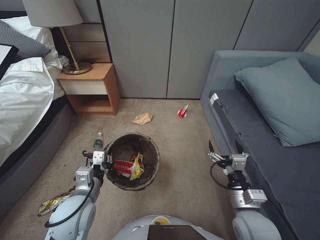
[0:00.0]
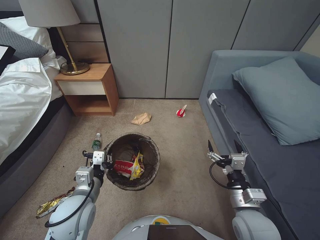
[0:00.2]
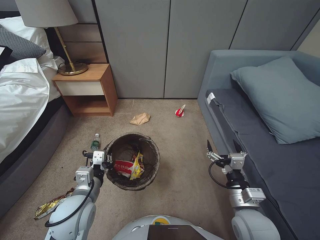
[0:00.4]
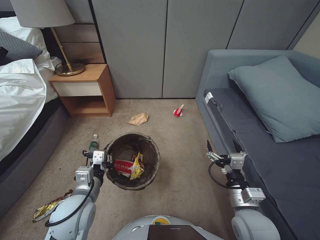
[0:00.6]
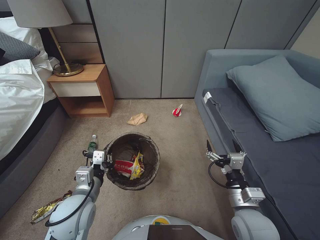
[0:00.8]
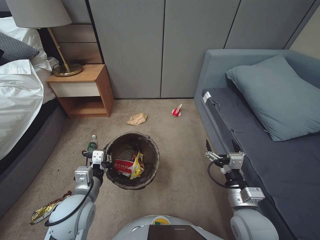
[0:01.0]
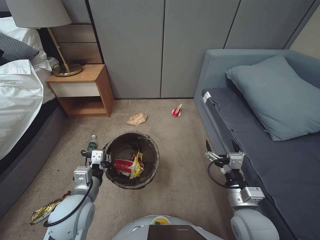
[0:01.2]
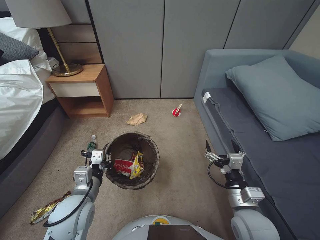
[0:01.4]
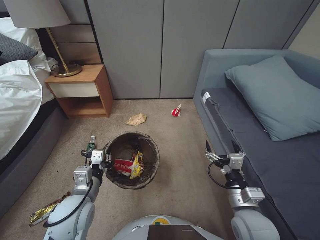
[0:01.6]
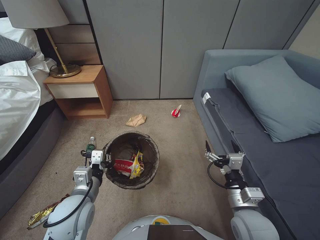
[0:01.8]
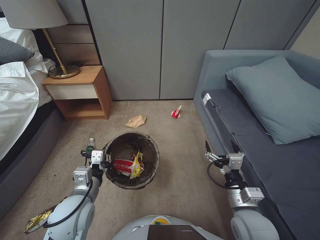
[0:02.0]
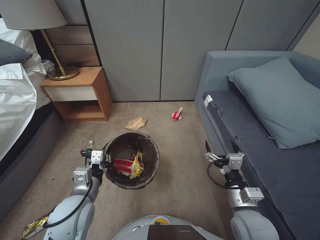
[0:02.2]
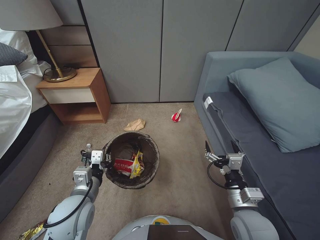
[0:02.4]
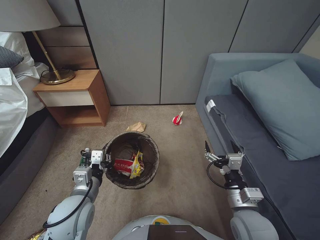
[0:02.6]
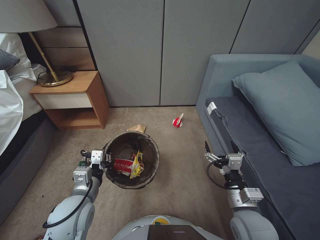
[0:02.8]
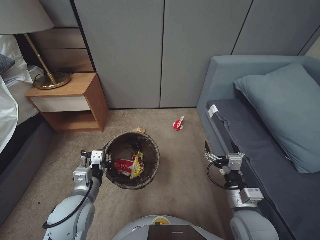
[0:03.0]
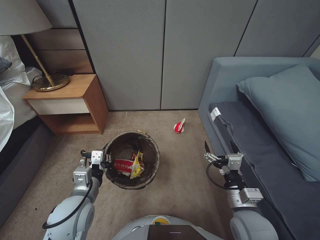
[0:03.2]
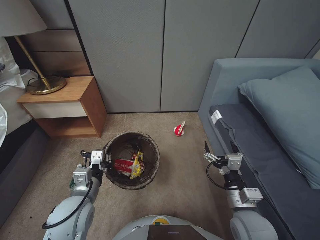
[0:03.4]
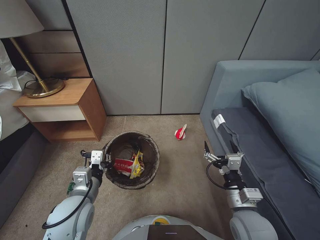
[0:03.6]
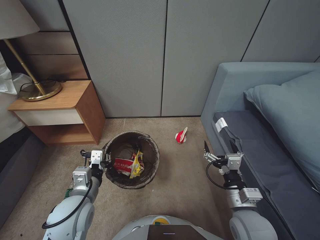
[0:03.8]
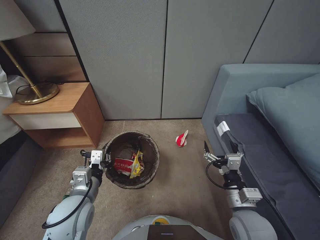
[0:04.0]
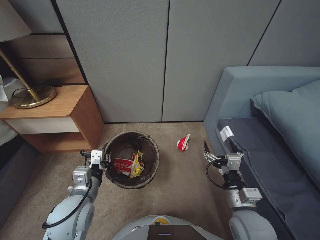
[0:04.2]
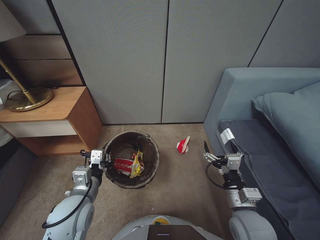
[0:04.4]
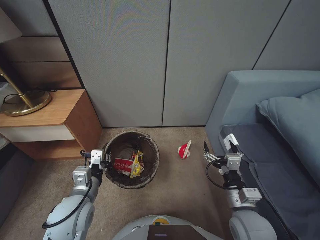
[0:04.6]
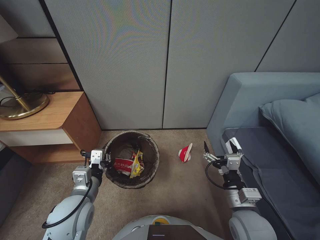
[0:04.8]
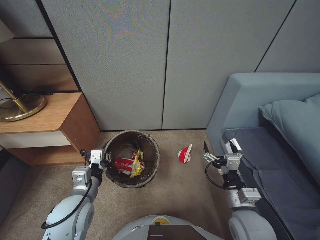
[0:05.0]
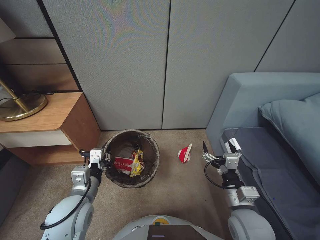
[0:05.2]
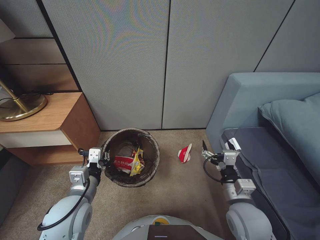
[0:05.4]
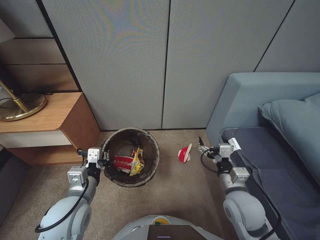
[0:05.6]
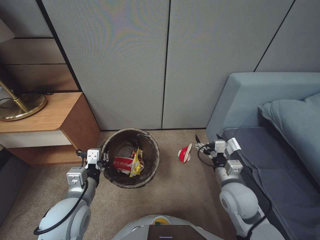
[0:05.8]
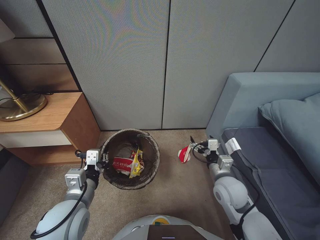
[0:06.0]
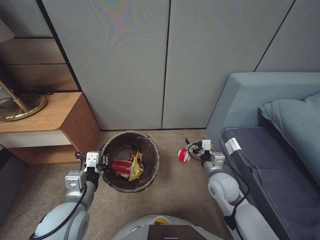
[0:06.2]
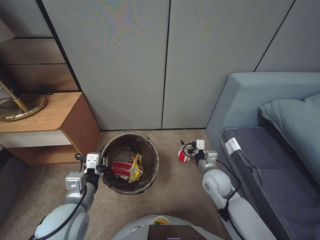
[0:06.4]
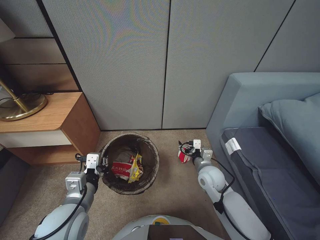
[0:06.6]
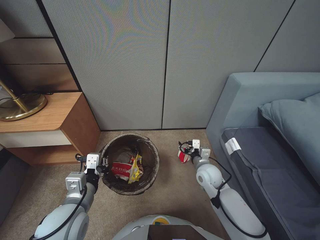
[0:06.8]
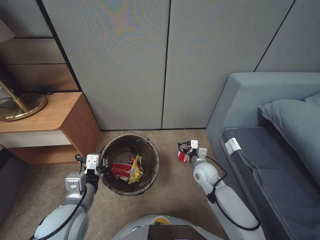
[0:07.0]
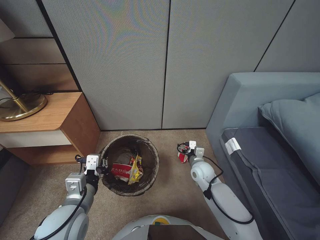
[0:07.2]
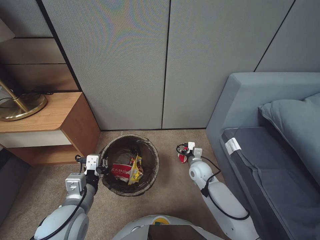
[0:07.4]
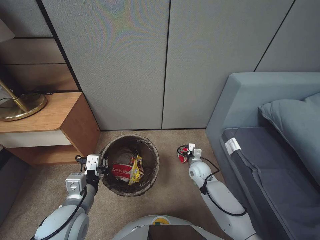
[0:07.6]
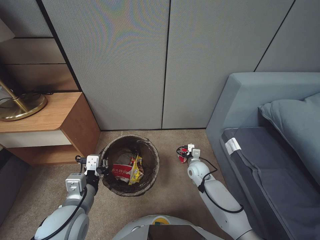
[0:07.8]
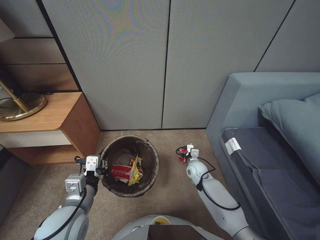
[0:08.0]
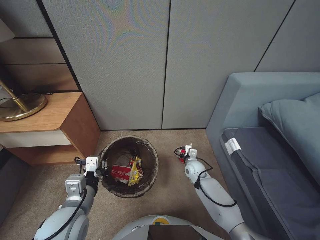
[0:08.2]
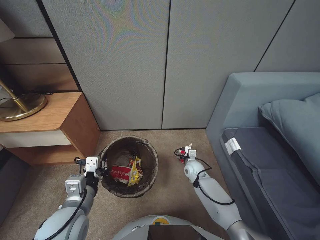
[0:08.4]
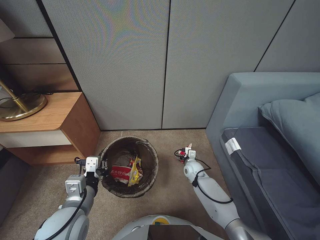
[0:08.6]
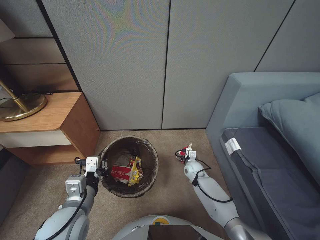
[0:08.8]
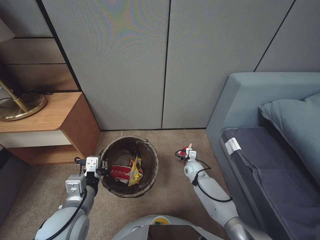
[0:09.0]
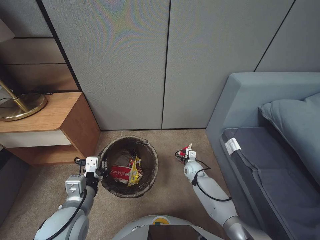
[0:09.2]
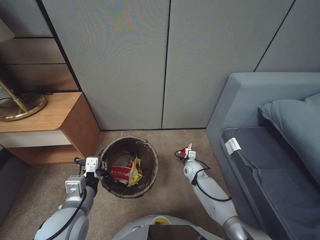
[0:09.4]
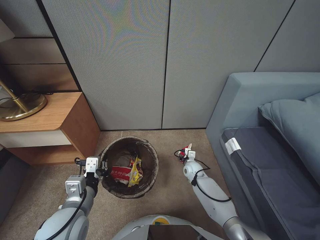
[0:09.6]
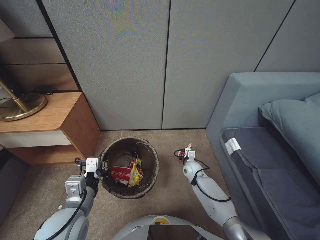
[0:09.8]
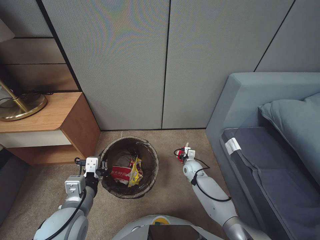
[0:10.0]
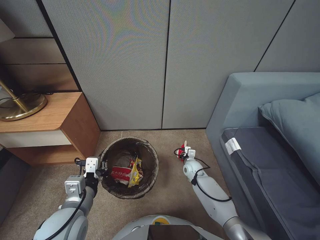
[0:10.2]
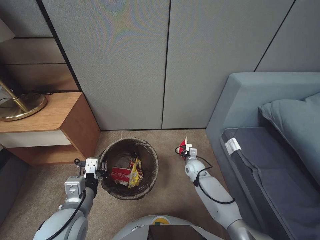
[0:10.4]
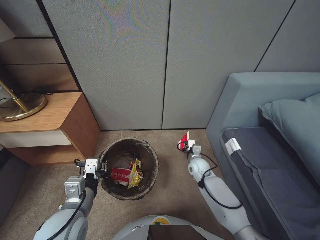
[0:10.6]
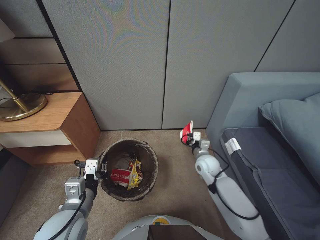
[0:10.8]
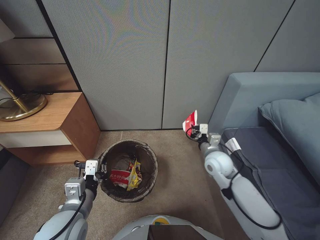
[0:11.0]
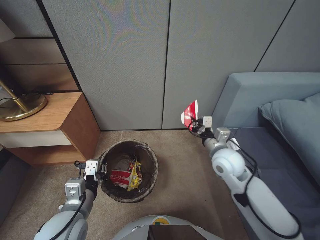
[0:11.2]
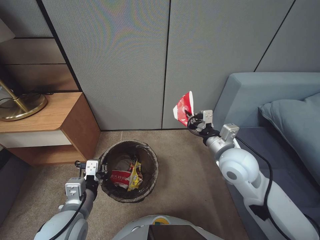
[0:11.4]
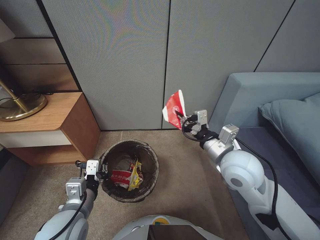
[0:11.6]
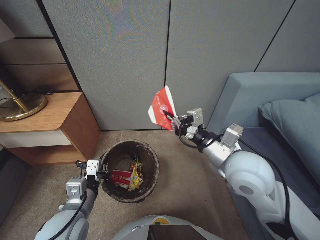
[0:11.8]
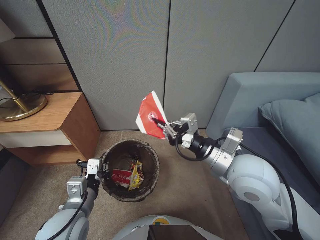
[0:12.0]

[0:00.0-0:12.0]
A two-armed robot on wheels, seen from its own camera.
Task of the whole recording: Pick up the trash bin, then pick up the garbage from the floor and place it into the trash bin.
0:00.0 to 0:01.6: Neither gripper changes place.
0:04.4 to 0:06.0: The right gripper travels forward by about 10 cm.
0:06.0 to 0:07.6: The right gripper shifts roughly 20 cm downward and forward.
0:07.6 to 0:09.0: The right gripper moves downward, some 5 cm.
0:09.0 to 0:10.4: The right gripper closes up.
0:10.4 to 0:12.0: The right gripper is displaced upward and backward by some 40 cm.

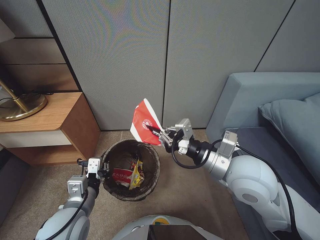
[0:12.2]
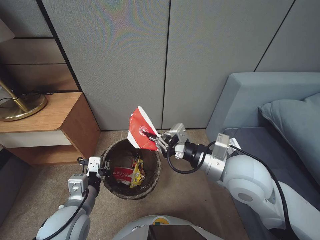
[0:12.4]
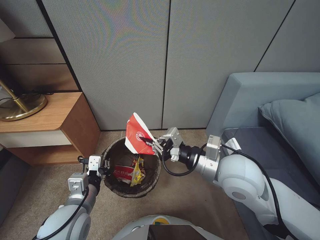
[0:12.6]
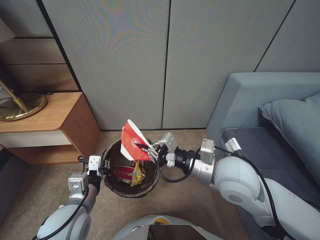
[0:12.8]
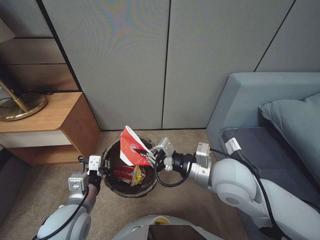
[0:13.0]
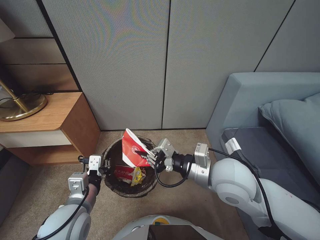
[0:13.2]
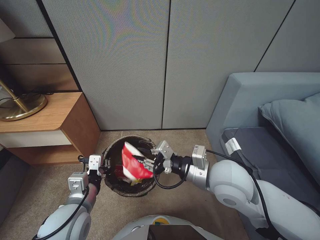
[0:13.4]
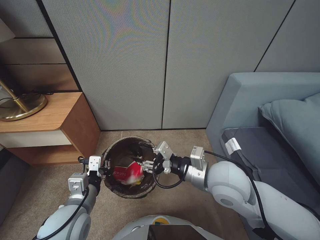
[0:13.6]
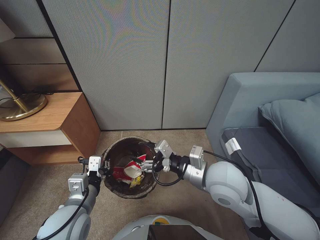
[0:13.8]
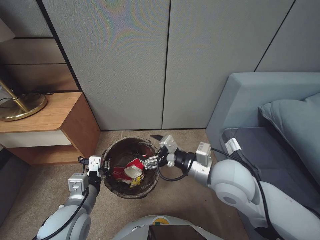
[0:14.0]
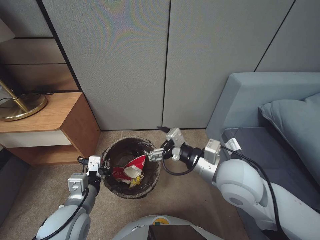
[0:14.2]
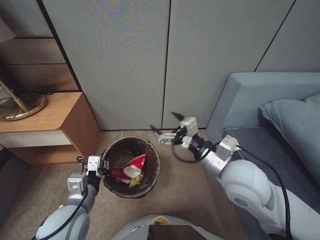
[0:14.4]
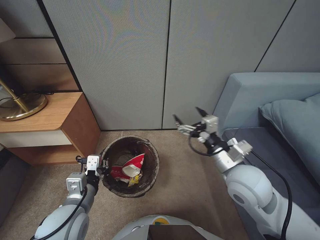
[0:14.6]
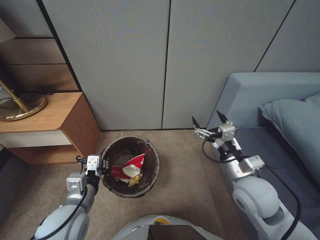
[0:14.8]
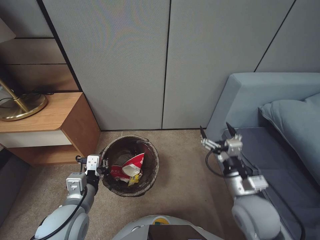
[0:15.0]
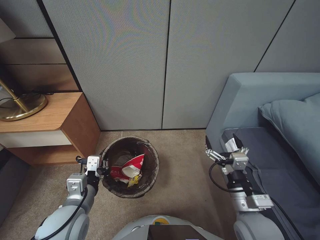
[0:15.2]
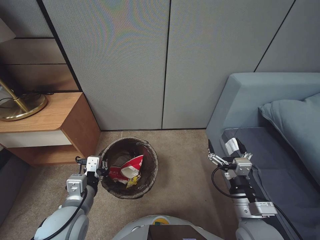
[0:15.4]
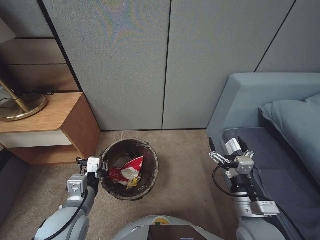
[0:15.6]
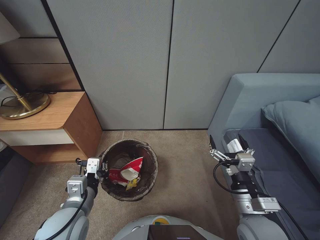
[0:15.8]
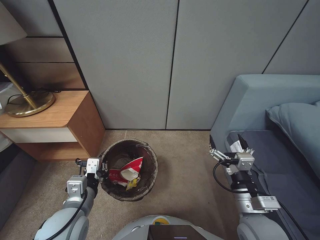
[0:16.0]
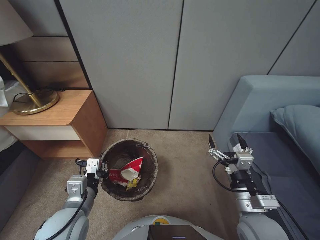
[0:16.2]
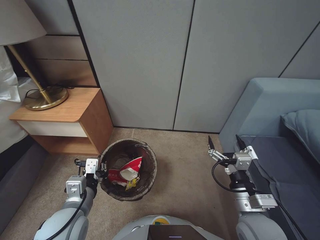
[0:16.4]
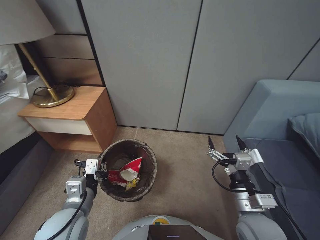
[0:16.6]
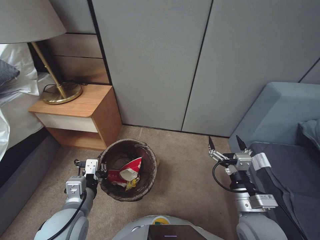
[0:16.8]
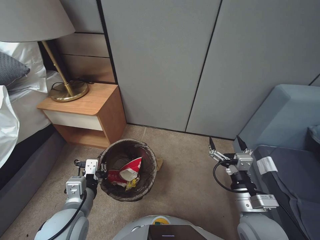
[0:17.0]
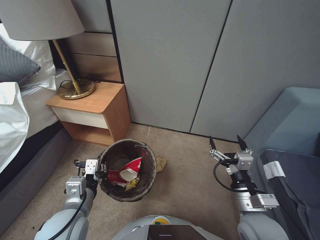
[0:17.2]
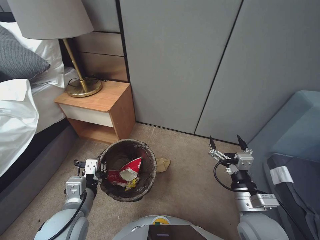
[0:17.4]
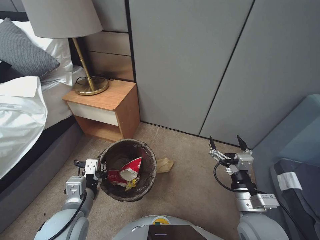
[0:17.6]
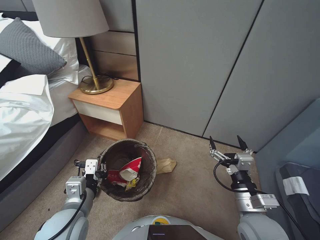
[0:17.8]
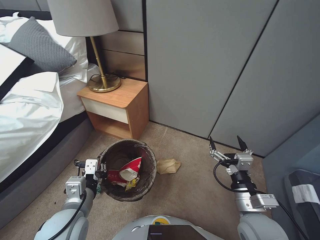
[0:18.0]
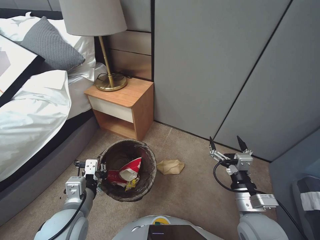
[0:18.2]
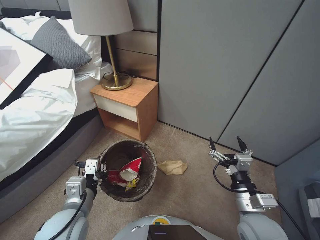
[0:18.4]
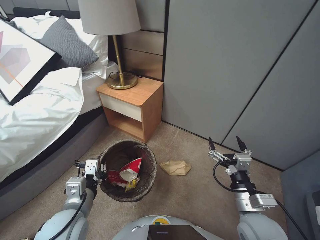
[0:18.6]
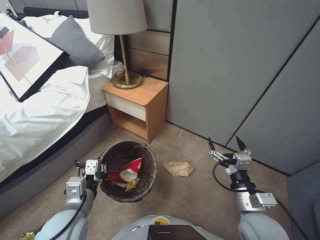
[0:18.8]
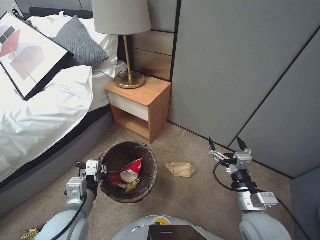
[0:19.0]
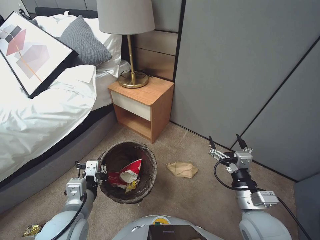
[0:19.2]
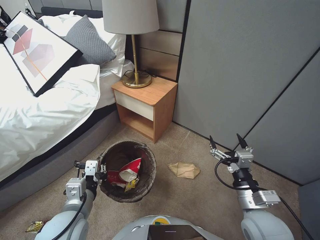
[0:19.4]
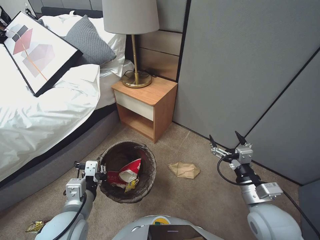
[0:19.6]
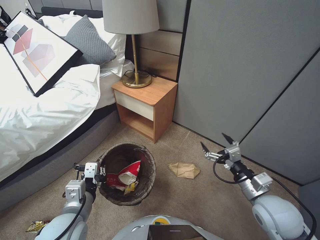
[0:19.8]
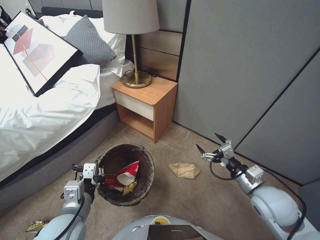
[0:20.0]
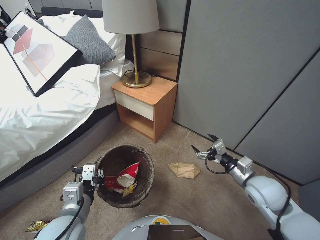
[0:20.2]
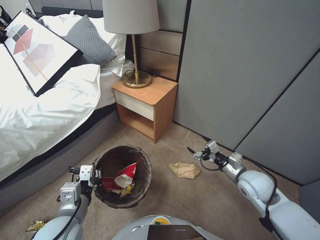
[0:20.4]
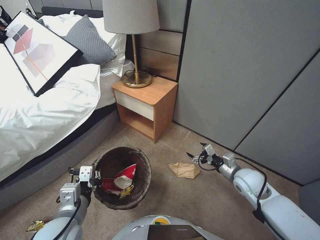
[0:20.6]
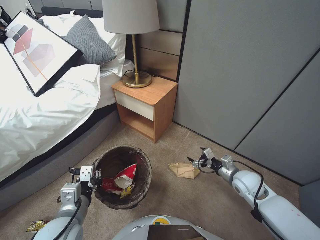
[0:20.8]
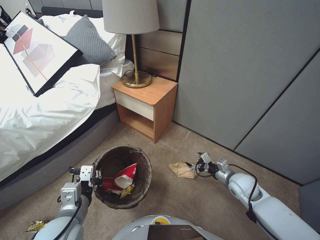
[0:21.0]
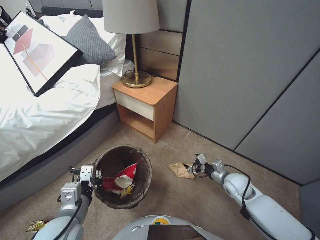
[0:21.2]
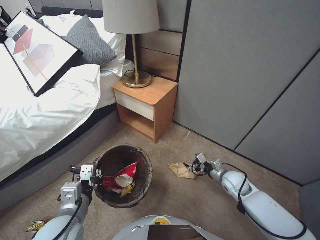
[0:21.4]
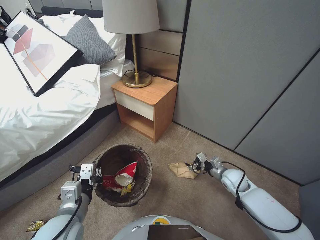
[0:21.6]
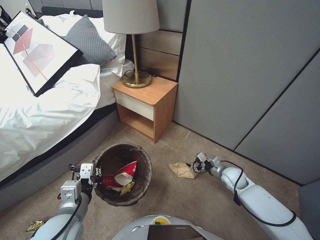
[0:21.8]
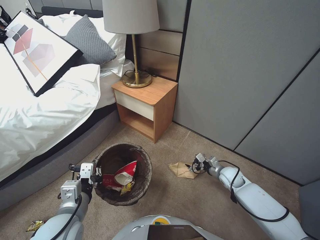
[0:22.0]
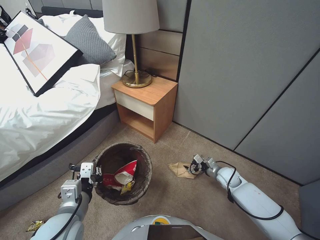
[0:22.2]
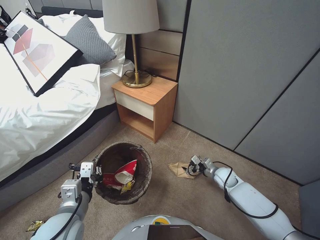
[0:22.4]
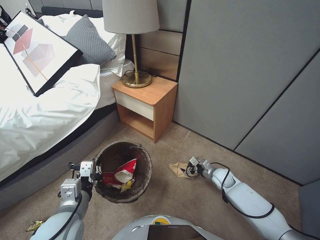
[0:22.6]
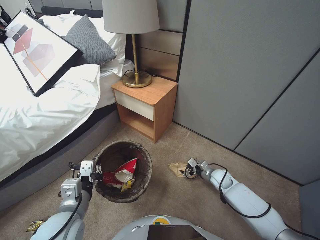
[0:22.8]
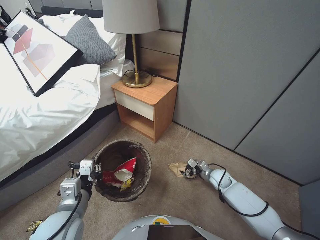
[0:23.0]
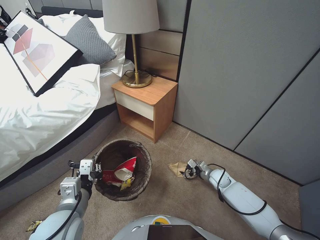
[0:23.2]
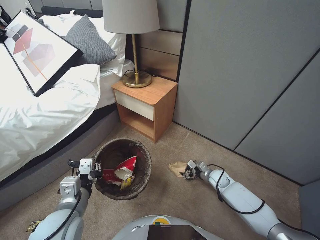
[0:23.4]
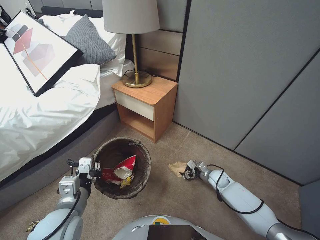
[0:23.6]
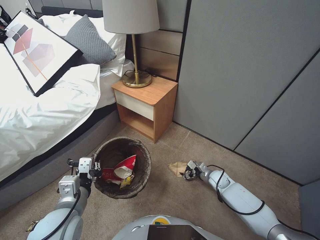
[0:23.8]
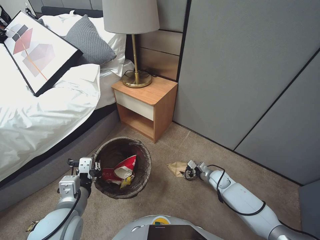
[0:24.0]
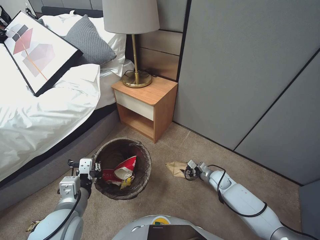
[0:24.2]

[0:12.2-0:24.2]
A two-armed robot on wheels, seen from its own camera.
Task of the whole recording: Pick up the trash bin, then pick up the garbage from the floor and place it into the trash bin.
0:12.2 to 0:13.8: The right gripper ends up some 5 cm from where it was, and opens its fingers.
0:13.8 to 0:15.2: The right gripper shifts some 15 cm downward, to the right and backward.
0:18.2 to 0:19.8: The right gripper ends up approximately 5 cm from where it was.
0:19.8 to 0:21.2: The right gripper heads downward and forward, covering about 15 cm.
0:21.2 to 0:22.6: The right gripper goes about 10 cm downward and forward.
0:22.6 to 0:24.2: The grippers make only small movements.
